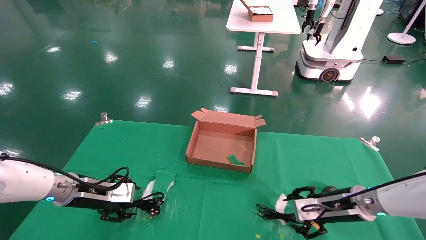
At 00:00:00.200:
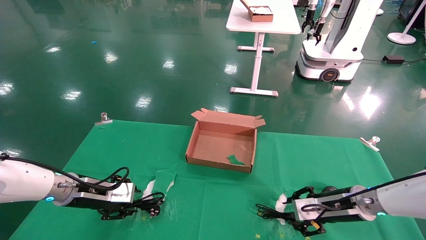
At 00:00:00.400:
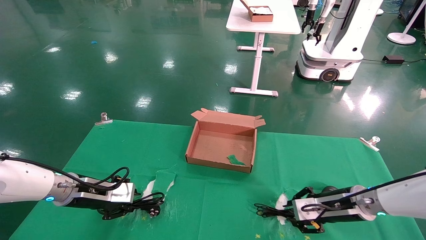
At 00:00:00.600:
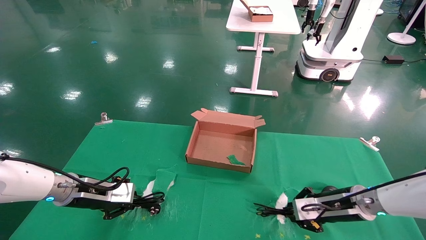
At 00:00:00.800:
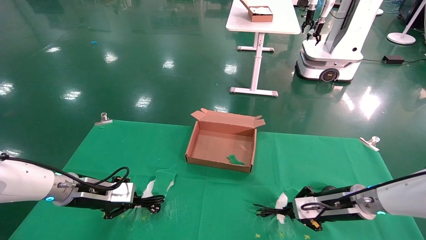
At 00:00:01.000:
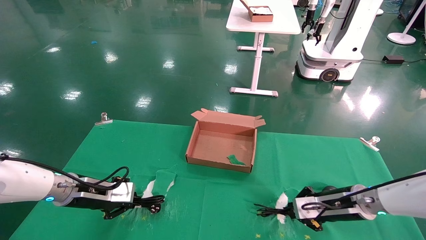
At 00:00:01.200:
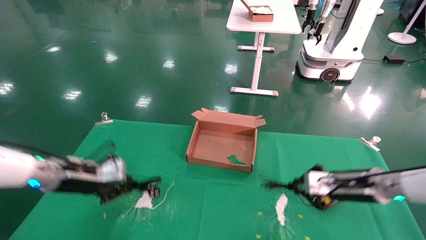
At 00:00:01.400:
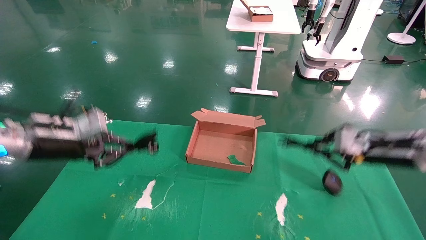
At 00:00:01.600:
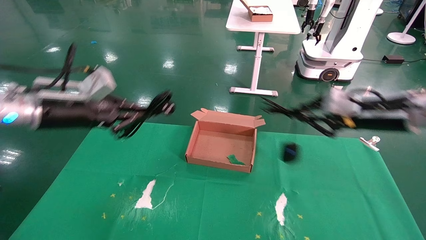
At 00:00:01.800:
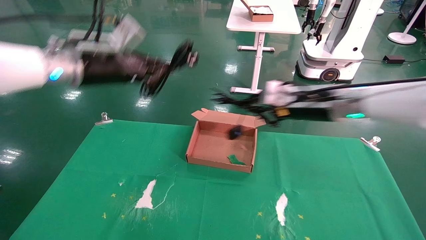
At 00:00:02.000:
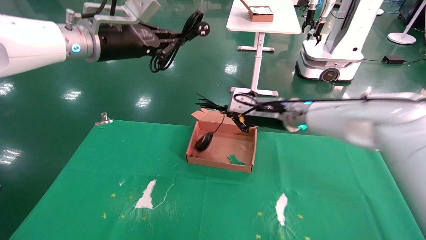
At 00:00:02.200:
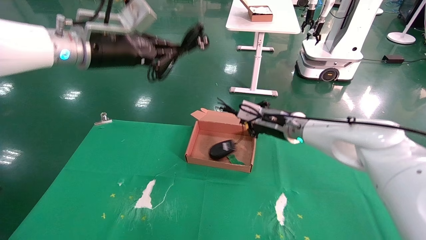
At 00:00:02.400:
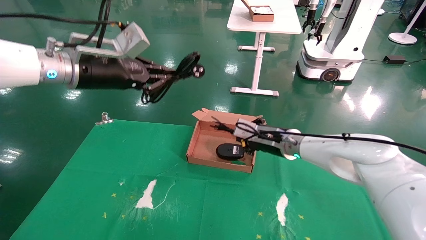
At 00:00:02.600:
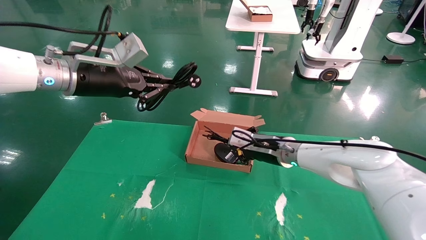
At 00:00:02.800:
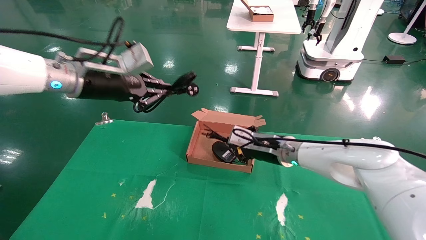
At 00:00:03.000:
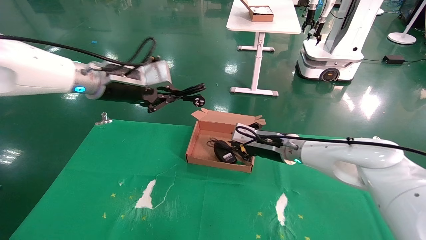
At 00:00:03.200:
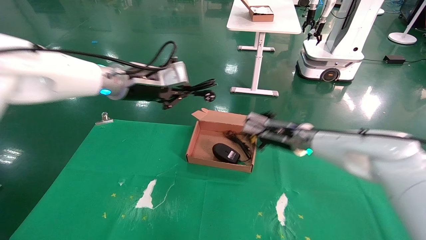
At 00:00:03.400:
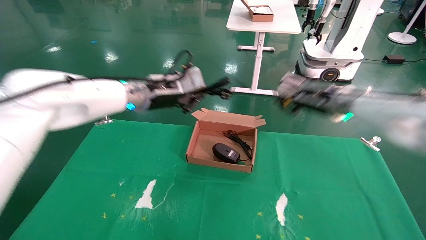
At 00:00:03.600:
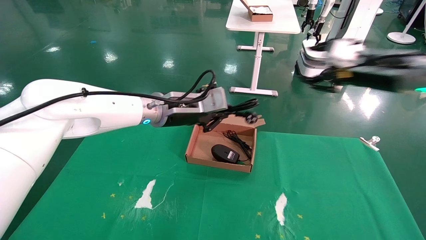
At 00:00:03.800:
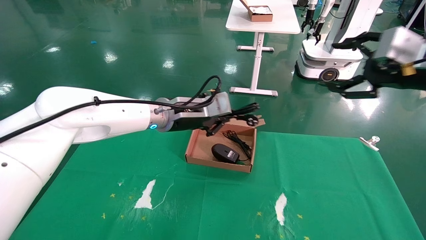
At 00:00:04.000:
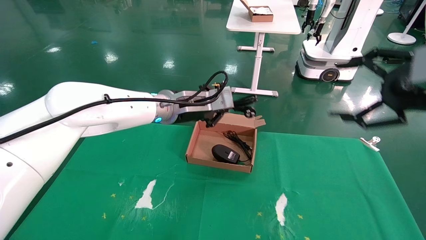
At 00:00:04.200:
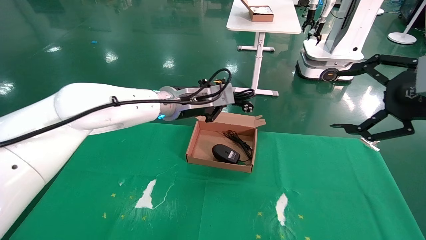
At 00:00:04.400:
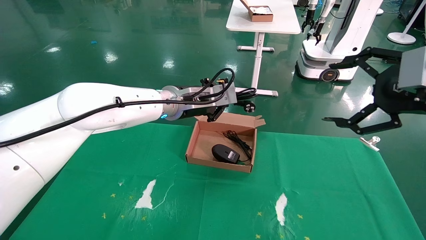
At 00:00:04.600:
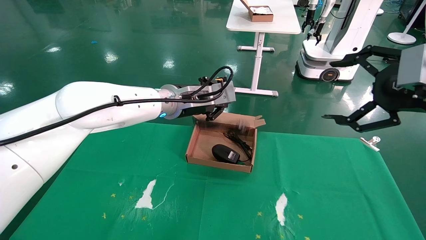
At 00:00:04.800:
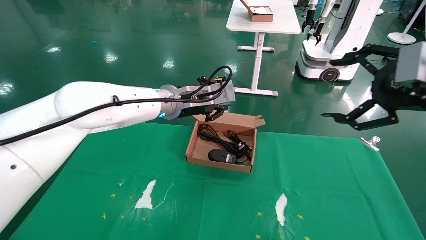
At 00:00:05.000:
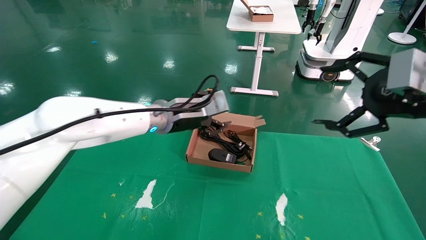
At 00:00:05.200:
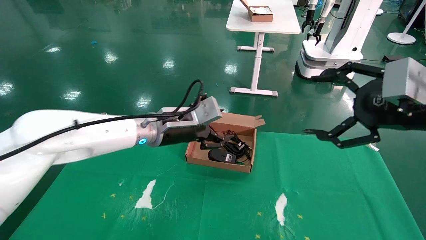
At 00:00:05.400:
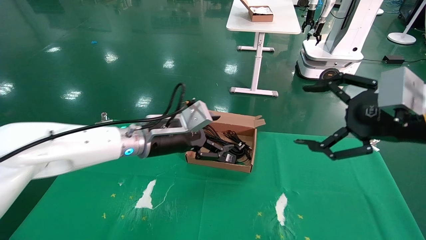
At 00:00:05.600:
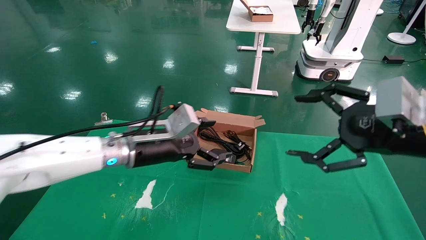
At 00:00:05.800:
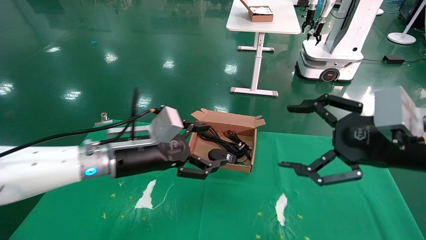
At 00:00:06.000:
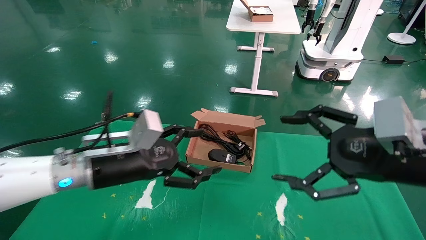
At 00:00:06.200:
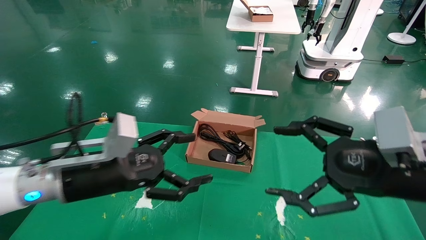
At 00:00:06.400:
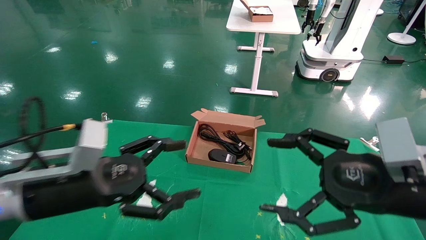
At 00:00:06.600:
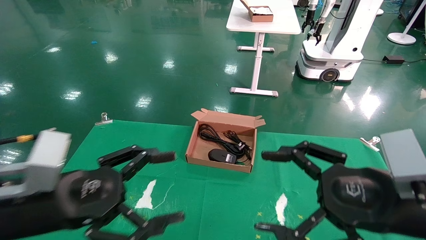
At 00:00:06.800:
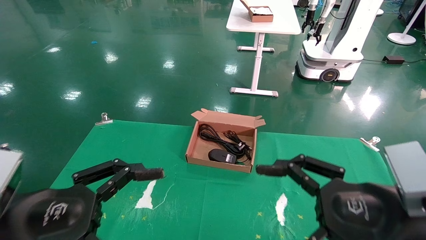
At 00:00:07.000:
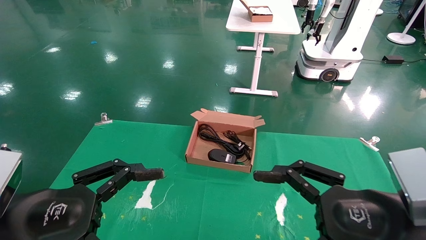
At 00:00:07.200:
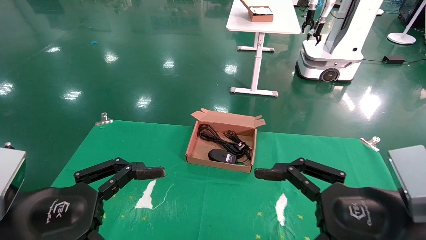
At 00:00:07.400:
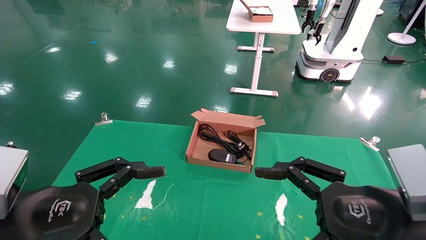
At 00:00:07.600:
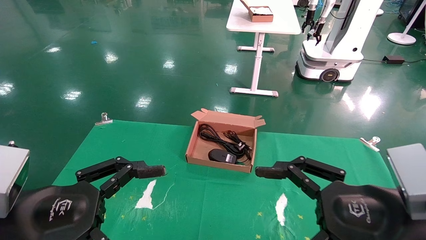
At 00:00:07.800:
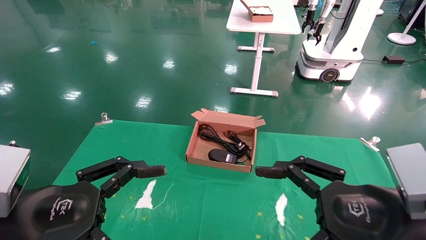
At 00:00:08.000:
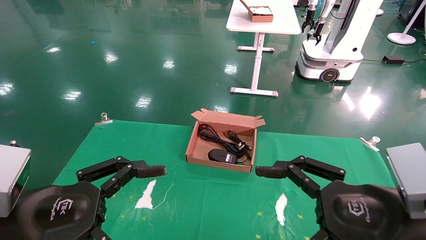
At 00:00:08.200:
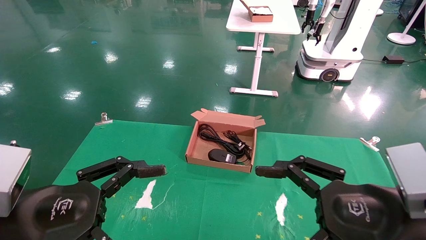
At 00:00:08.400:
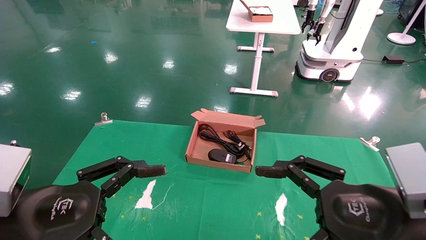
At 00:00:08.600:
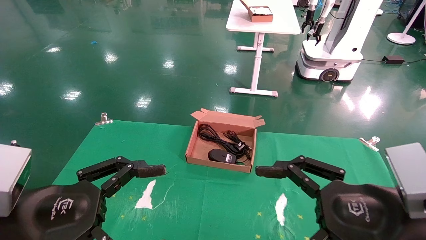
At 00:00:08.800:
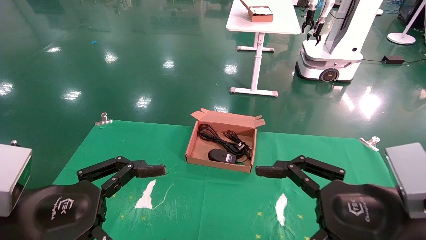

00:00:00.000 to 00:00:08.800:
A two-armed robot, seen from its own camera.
Step, 00:00:01.000 to 00:00:05.400: Place the mouse and power cord into the box.
00:00:00.000 to 00:00:01.400: The two grippers go approximately 15 cm upward. The left gripper closes its fingers; the right gripper closes.
00:00:01.400 to 00:00:03.000: The right gripper goes approximately 20 cm to the left and forward; the left gripper moves to the right and upward, about 15 cm.
00:00:03.000 to 00:00:04.400: The left gripper travels to the right by about 15 cm. The right gripper shifts about 35 cm backward, to the right and upward, and opens its fingers.
00:00:04.400 to 00:00:05.800: The right gripper heads downward and to the left, covering some 10 cm, while the left gripper is displaced backward, to the left and downward by some 15 cm, and opens.
00:00:05.800 to 00:00:07.400: The right gripper moves downward and backward, approximately 10 cm. Meanwhile the left gripper shifts some 20 cm backward and to the left.
00:00:07.400 to 00:00:08.800: The two grippers keep their place.
